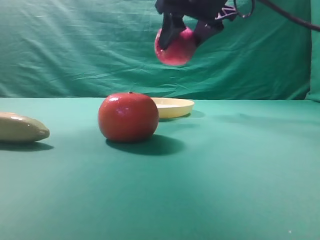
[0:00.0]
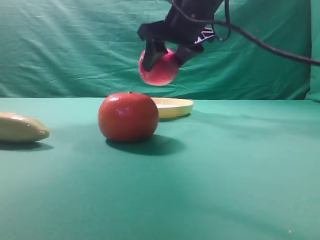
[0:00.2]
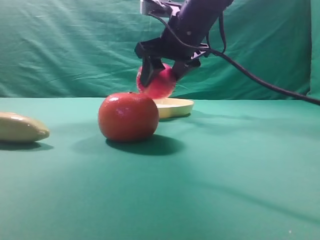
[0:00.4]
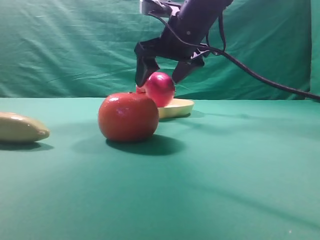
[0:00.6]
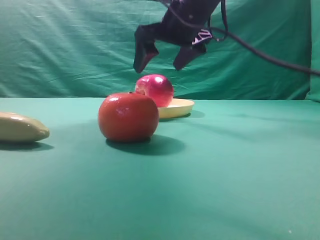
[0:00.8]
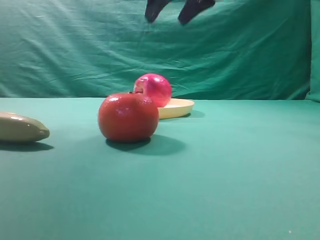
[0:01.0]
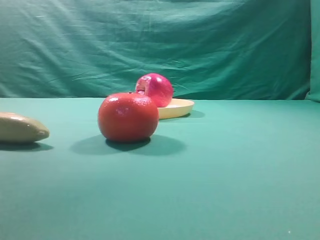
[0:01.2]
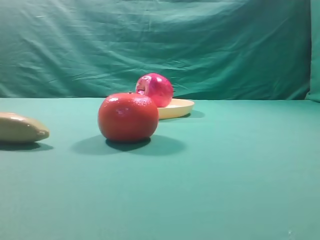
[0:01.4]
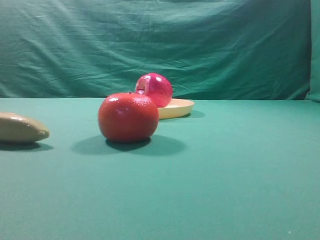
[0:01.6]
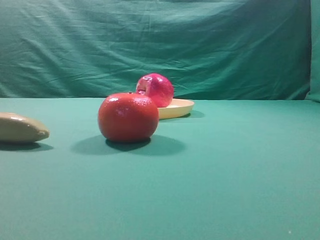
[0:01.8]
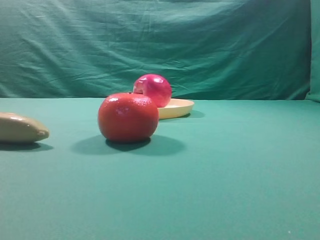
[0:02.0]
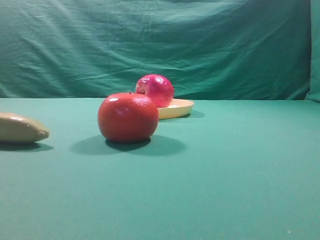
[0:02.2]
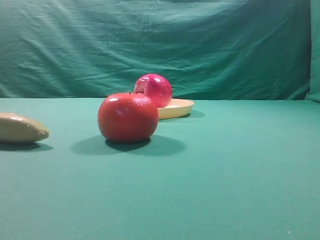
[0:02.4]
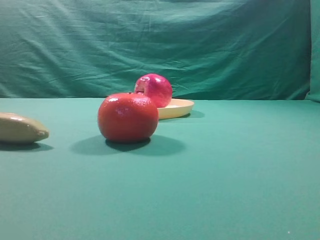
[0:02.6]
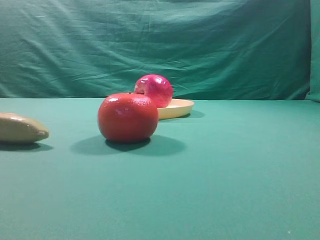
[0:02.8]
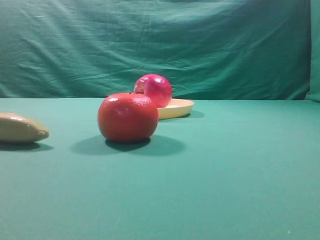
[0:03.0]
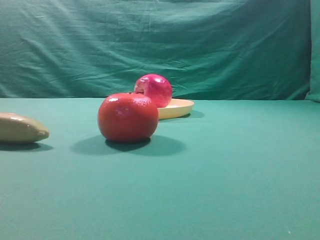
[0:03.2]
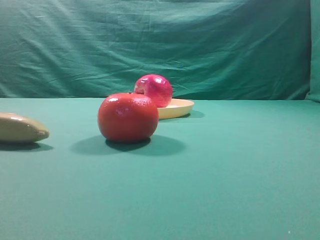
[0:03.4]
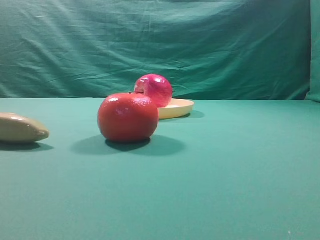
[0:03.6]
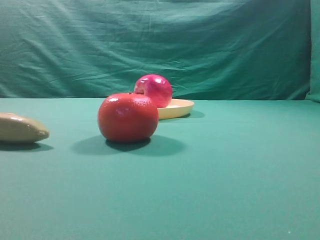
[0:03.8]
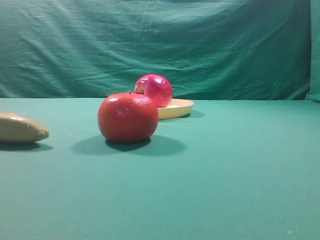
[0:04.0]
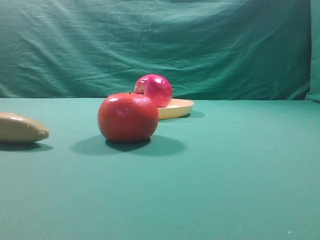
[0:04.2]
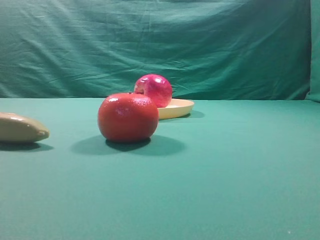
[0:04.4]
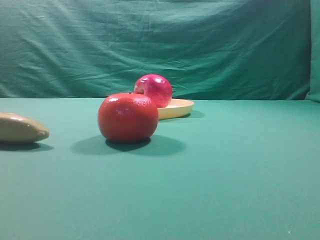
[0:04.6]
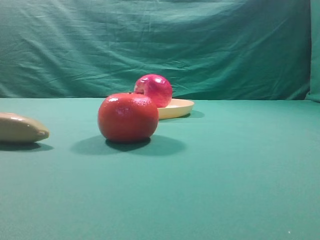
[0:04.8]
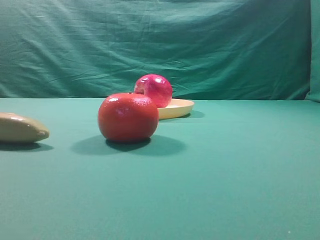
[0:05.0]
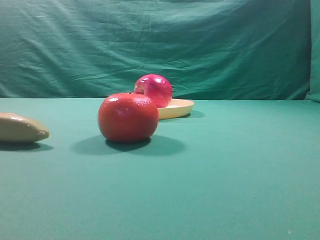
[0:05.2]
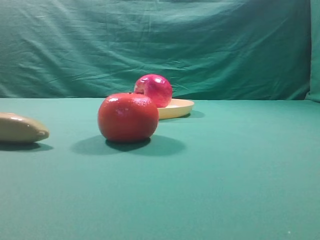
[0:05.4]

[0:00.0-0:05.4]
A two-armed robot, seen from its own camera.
Task of the whole recording: grasp the apple and place it into the yellow plate.
Step, 0:00.0 to 0:00.8: Place the picked object into the yellow plate.

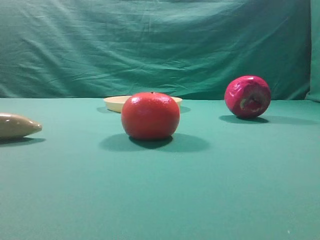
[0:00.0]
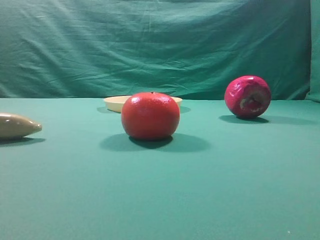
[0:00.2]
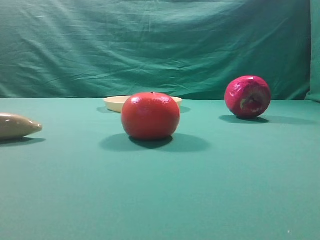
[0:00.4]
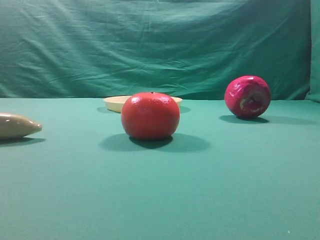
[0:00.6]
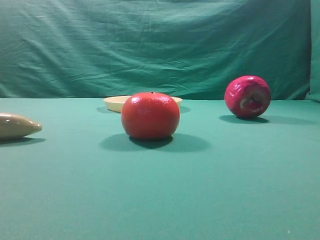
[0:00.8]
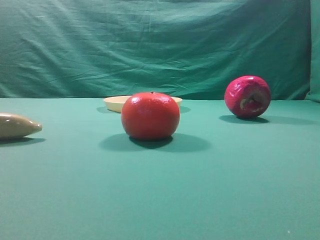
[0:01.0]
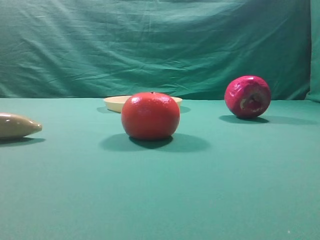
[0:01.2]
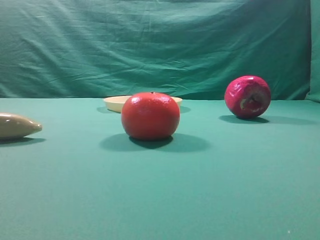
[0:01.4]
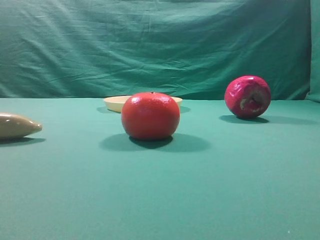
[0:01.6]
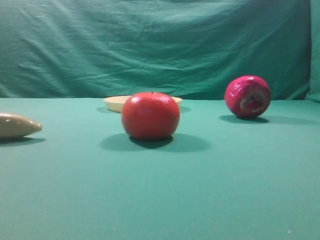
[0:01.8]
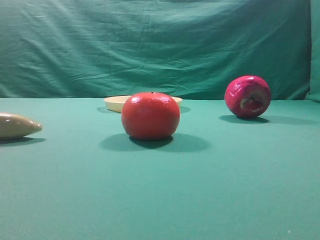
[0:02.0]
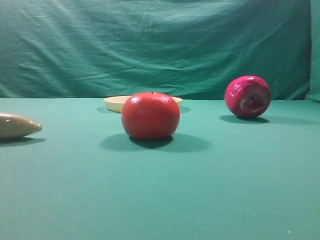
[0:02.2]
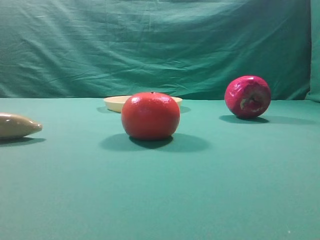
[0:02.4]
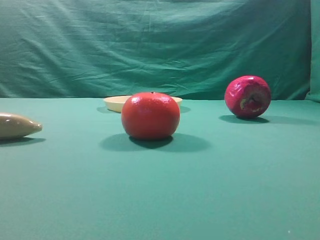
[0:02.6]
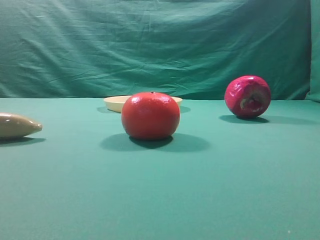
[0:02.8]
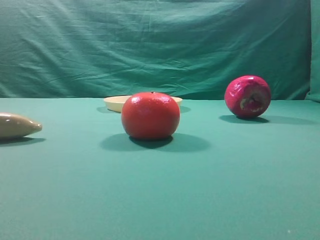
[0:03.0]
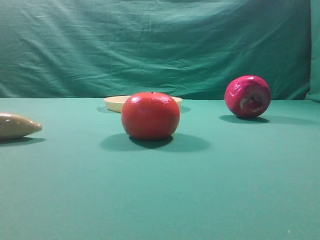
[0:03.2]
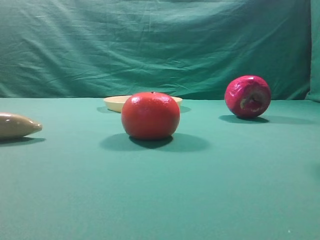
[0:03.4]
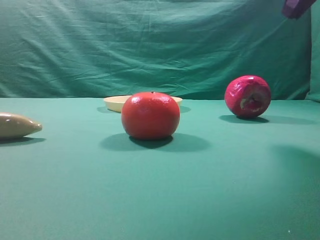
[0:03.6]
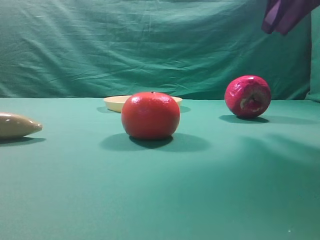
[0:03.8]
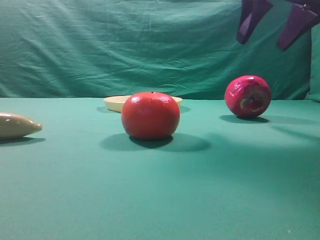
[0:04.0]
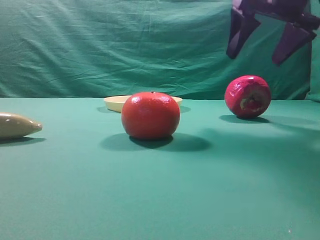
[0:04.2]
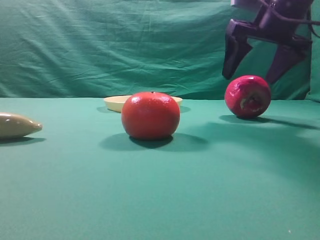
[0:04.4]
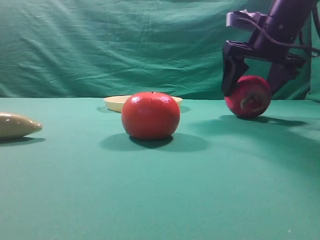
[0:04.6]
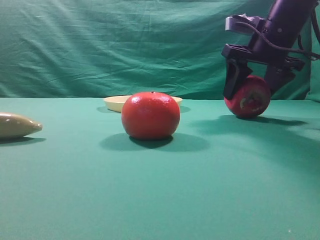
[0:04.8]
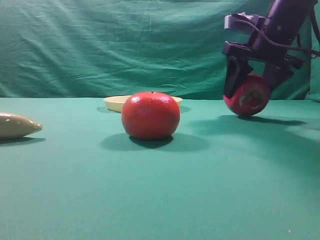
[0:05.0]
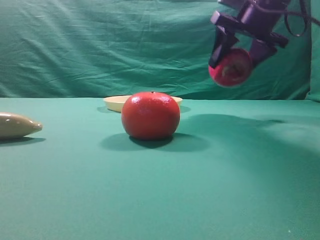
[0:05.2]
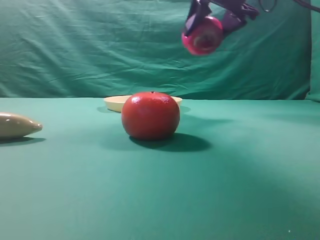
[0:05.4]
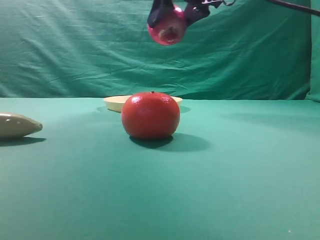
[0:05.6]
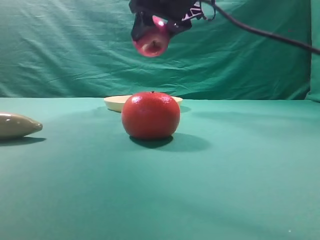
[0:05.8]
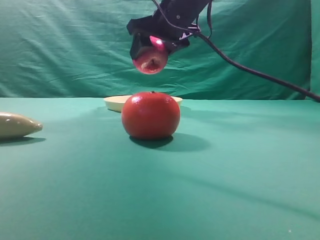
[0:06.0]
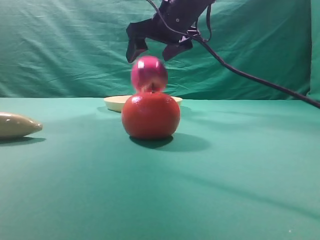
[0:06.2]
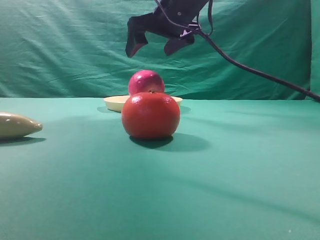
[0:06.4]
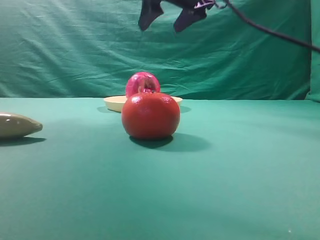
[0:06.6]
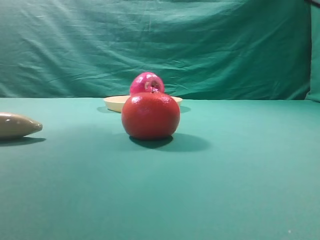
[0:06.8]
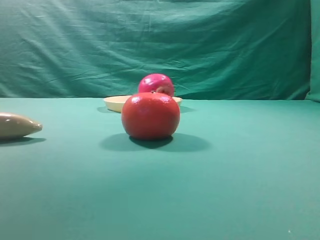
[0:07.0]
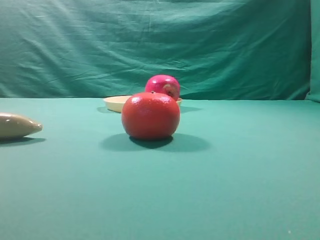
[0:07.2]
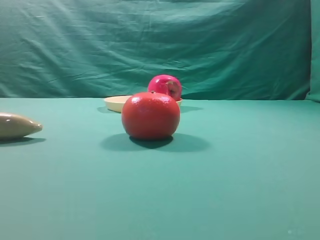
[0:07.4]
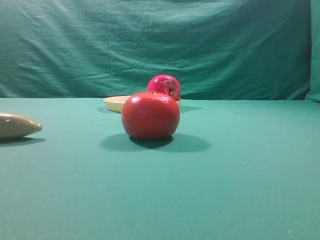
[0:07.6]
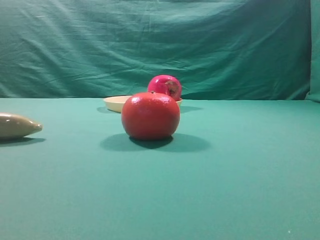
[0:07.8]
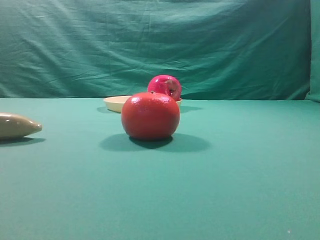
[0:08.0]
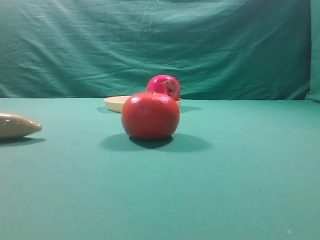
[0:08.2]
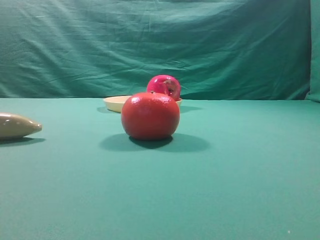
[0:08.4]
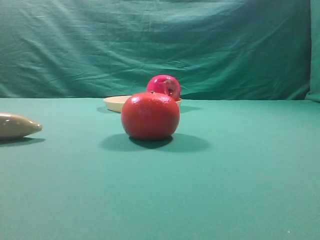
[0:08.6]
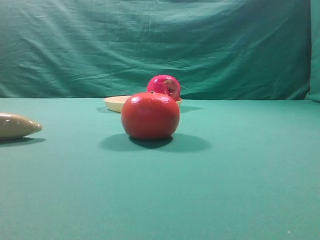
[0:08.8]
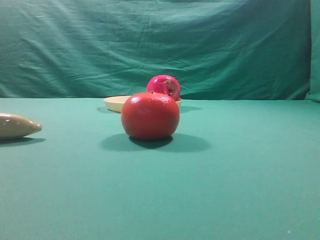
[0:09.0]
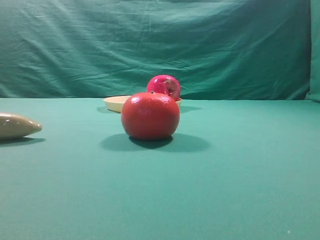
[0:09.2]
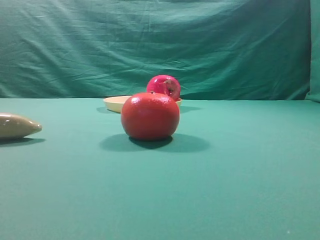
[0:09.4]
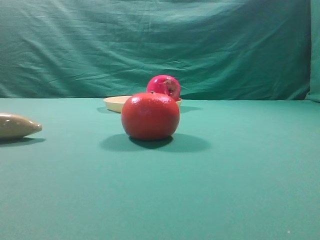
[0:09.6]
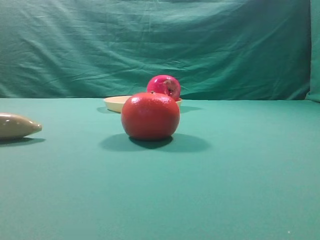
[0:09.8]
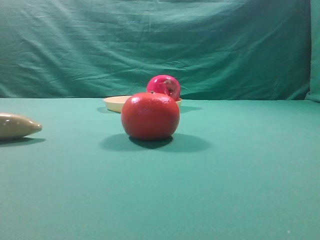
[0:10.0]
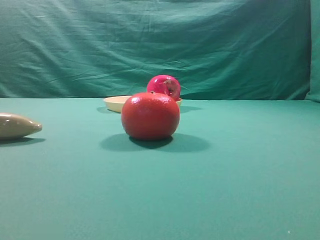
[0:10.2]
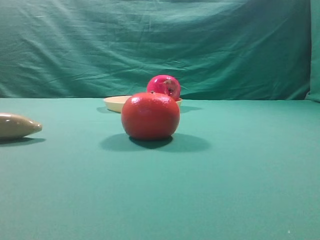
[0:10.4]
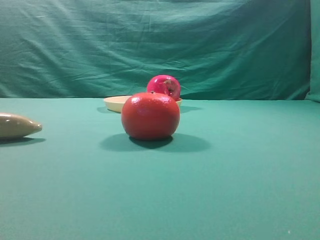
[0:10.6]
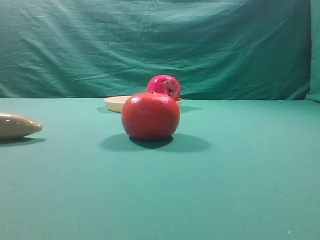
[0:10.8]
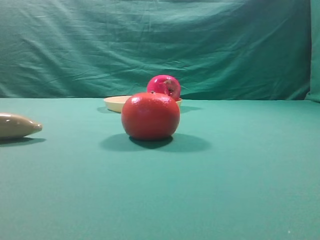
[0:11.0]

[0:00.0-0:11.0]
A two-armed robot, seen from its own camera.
Task of the whole recording: grasp the apple and place it into the yellow plate.
Step, 0:00.0 to 0:05.0: Grasp the fruit that can keep the doctor away.
Step, 0:05.2 to 0:06.4: Place the picked object into the yellow plate.
